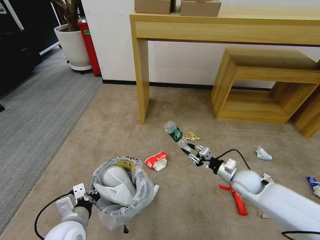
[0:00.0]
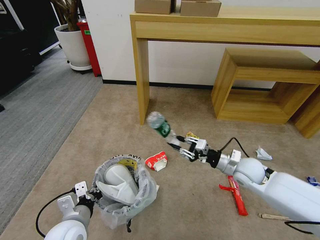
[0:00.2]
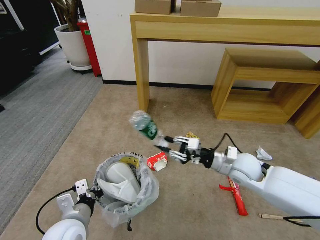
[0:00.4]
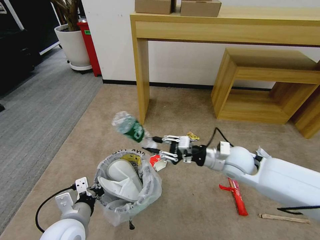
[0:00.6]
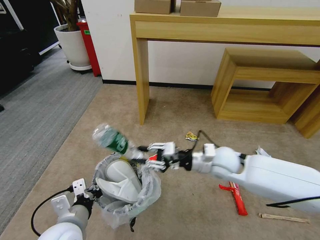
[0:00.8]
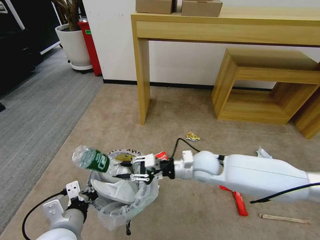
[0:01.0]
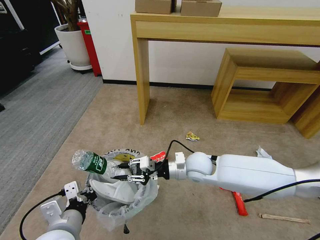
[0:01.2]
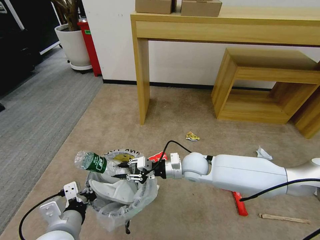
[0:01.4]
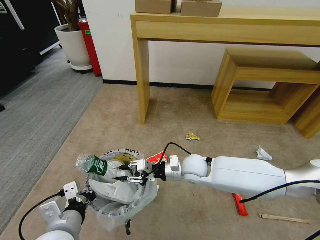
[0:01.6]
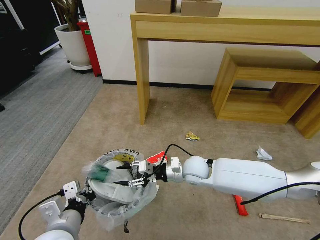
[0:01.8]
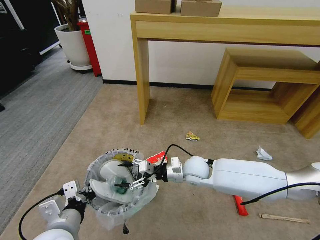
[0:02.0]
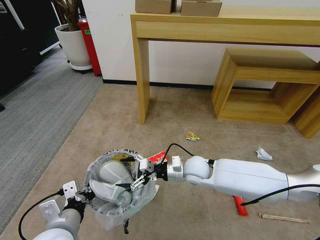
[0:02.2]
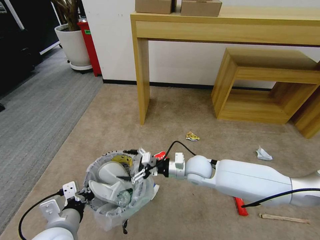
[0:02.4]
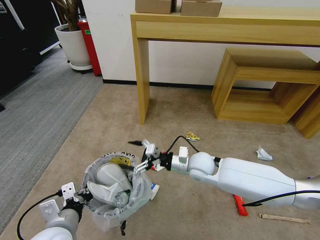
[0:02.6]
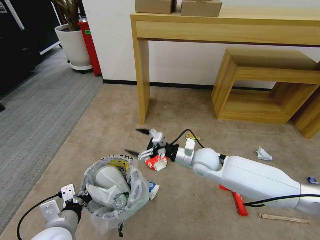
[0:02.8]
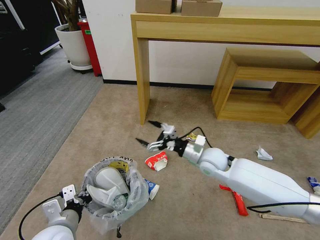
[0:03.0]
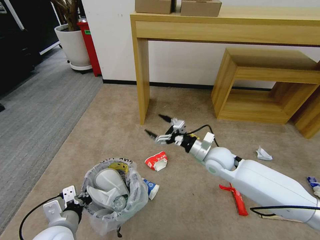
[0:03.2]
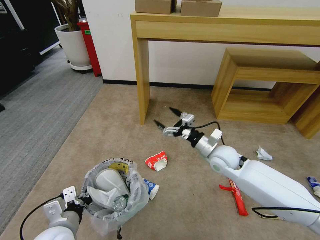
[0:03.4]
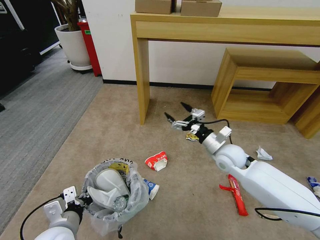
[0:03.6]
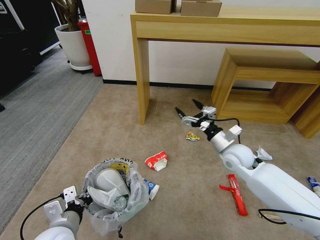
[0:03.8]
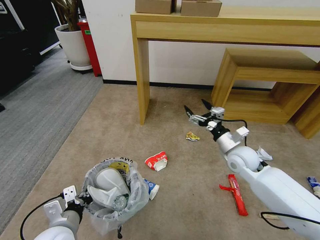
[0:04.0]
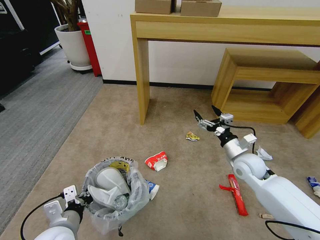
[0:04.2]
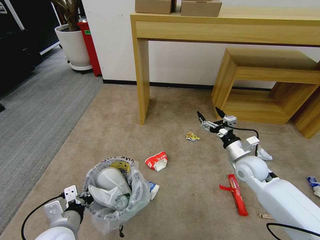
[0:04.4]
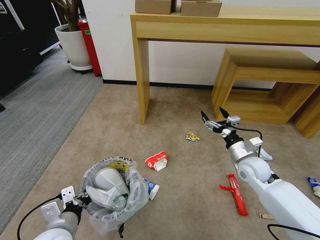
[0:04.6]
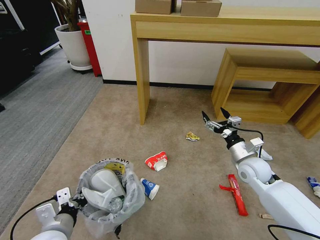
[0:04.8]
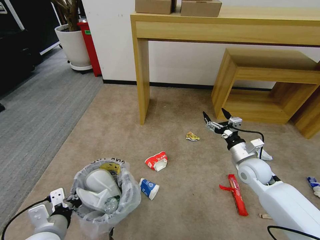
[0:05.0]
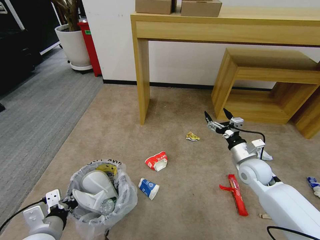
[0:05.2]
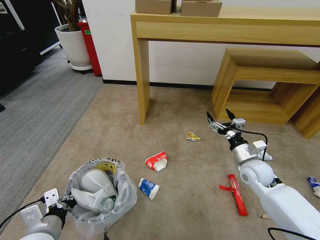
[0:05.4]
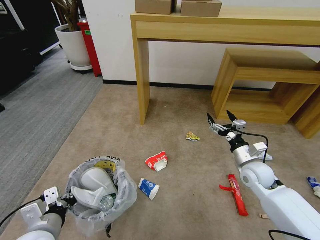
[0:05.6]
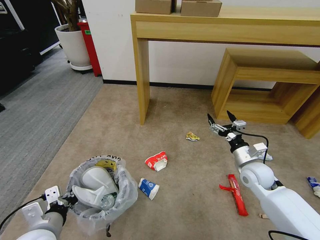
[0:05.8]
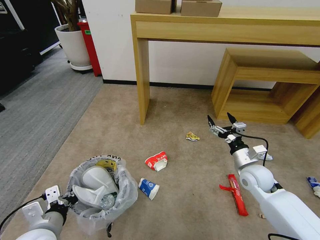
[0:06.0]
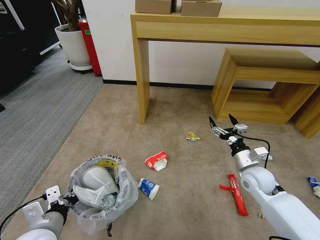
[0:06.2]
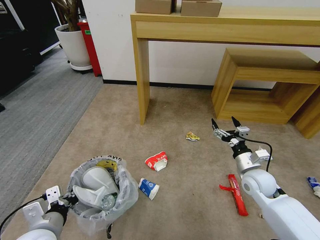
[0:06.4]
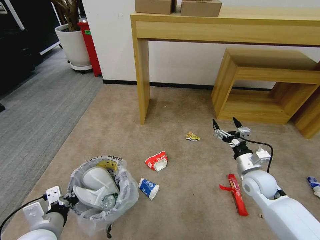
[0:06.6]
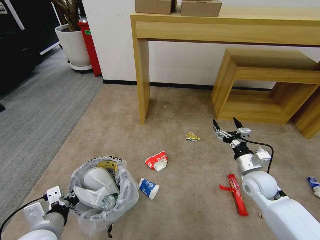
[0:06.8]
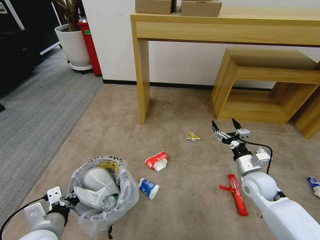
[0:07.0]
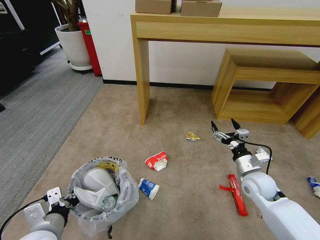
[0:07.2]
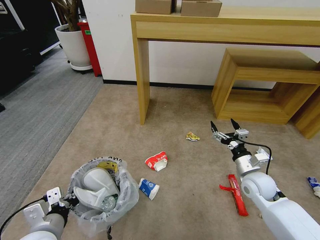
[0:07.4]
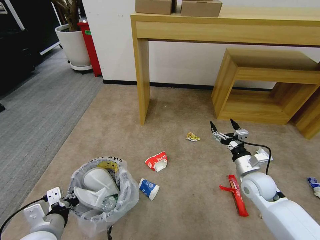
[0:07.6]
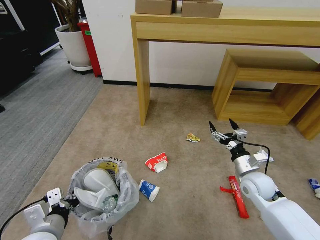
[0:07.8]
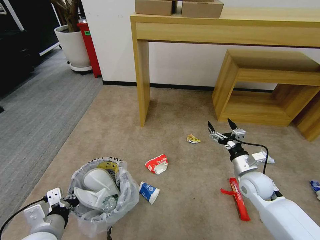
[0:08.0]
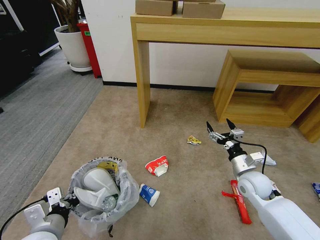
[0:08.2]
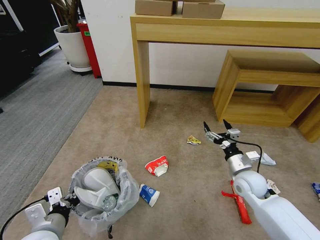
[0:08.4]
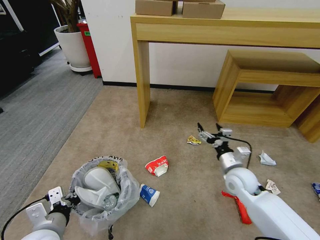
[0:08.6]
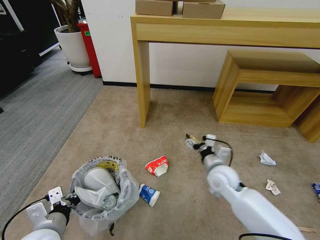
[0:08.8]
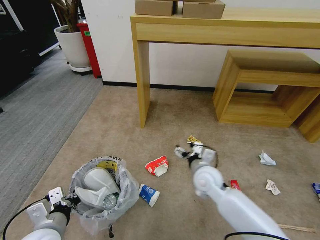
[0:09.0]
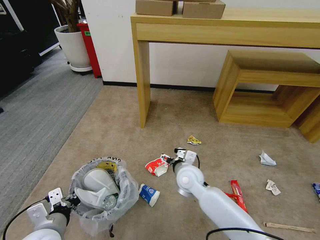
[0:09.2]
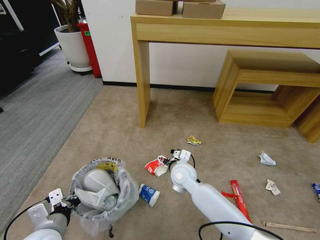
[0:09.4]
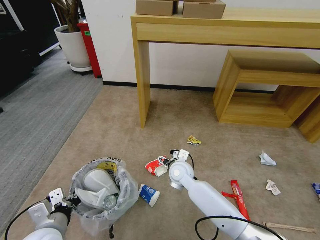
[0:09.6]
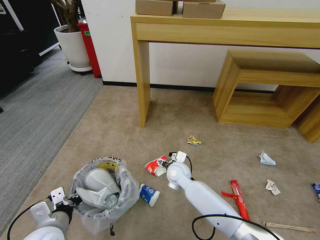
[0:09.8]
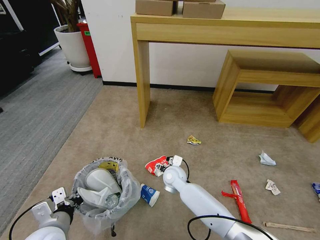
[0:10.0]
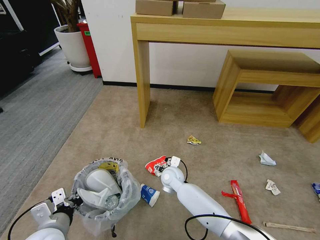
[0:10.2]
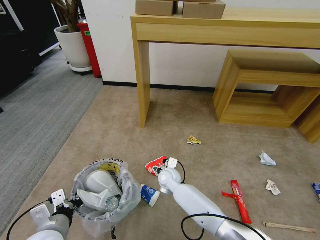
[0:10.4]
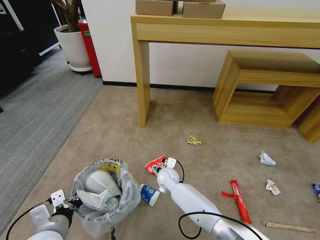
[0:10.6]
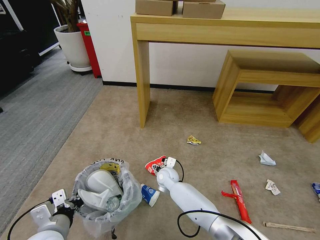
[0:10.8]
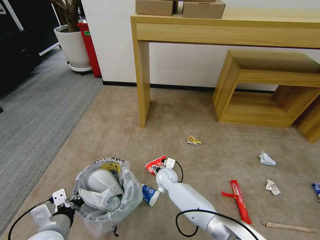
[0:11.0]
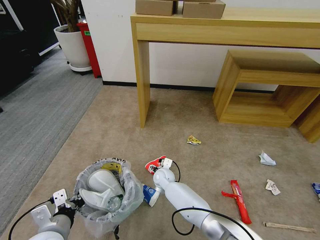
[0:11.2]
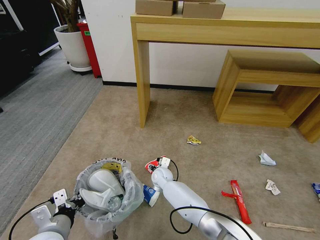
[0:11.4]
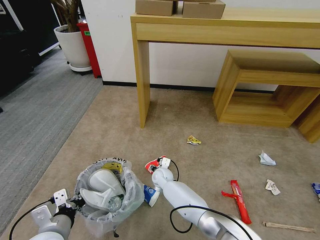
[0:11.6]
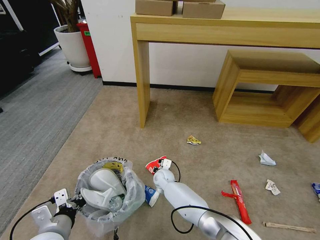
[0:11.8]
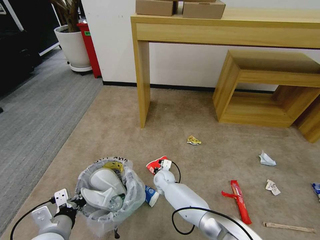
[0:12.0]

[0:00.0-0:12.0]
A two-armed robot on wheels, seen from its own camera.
Task of the whole recording: Pick up the trash bin and place the garbage on the floor into it.
0:00.0 to 0:01.6: The right gripper goes about 20 cm to the left. Meanwhile the left gripper travels upward by some 5 cm.
0:01.6 to 0:03.0: The right gripper heads to the right, covering about 5 cm, and opens its fingers, while the left gripper ends up about 5 cm from where it was.
0:03.0 to 0:04.4: The right gripper heads to the right, covering roughly 15 cm.
0:04.4 to 0:07.6: The grippers stay close to where they were, moving slightly.
0:07.6 to 0:09.0: The right gripper is displaced to the left by roughly 15 cm.
0:09.0 to 0:10.4: The right gripper goes roughly 20 cm to the left, downward and forward.
0:10.4 to 0:12.0: The right gripper moves downward, roughly 5 cm, and closes its fingers.

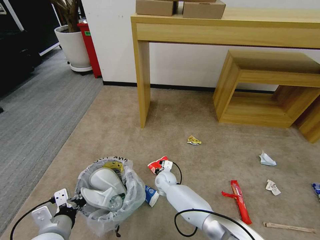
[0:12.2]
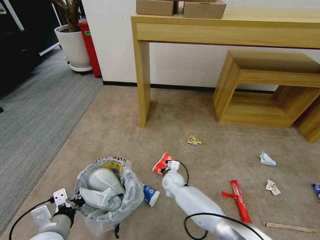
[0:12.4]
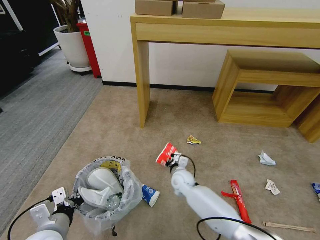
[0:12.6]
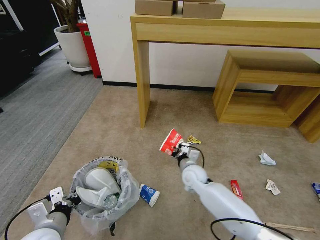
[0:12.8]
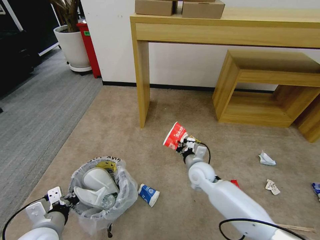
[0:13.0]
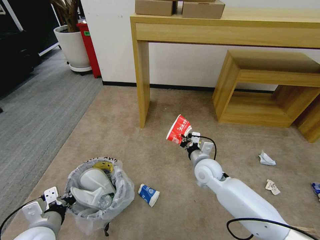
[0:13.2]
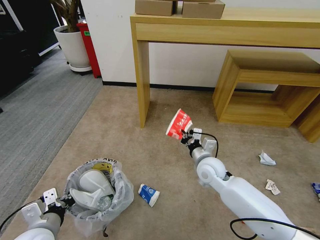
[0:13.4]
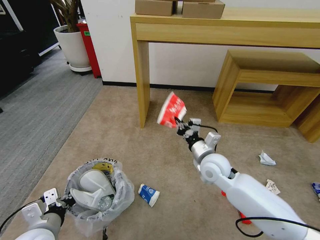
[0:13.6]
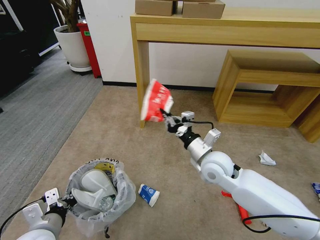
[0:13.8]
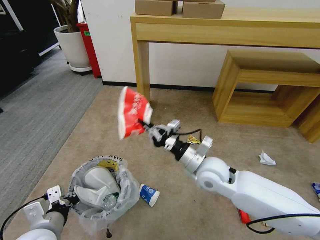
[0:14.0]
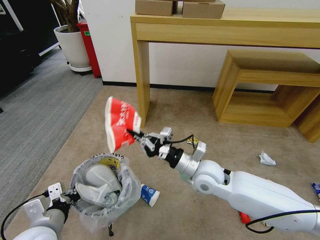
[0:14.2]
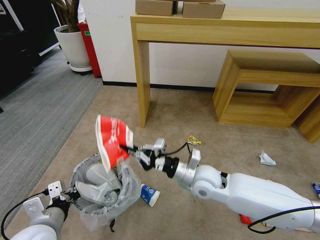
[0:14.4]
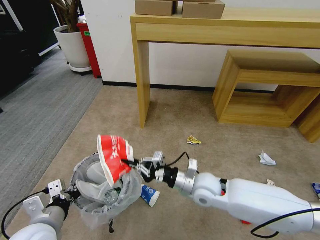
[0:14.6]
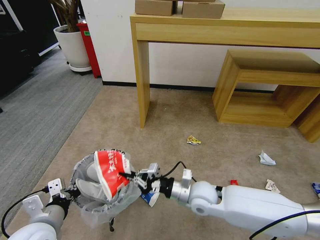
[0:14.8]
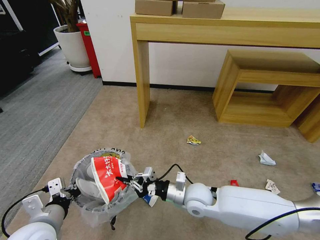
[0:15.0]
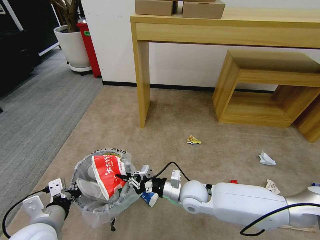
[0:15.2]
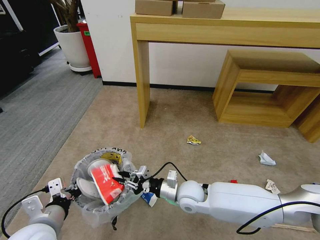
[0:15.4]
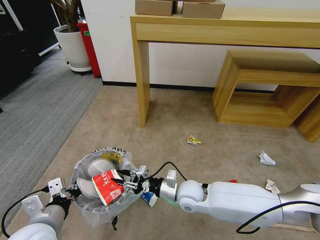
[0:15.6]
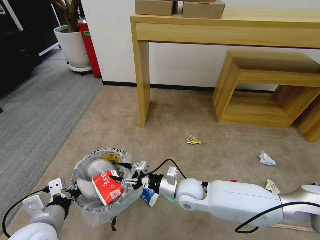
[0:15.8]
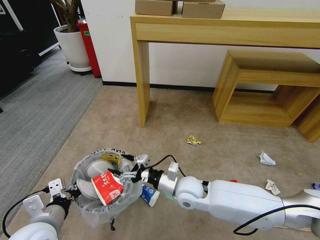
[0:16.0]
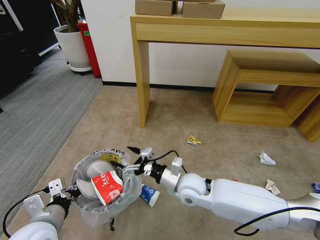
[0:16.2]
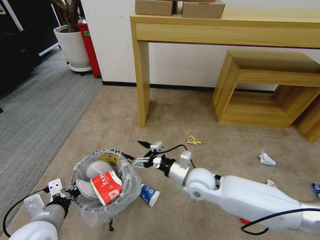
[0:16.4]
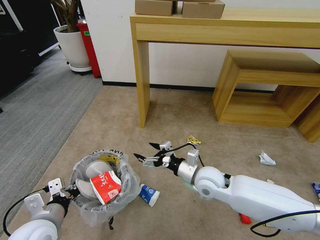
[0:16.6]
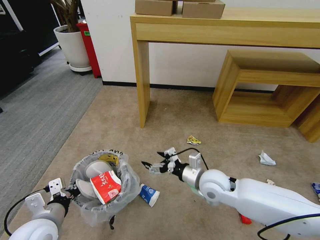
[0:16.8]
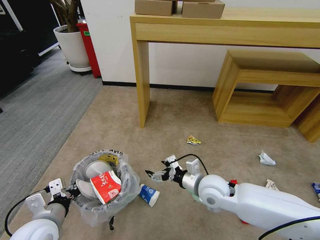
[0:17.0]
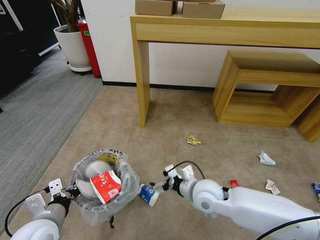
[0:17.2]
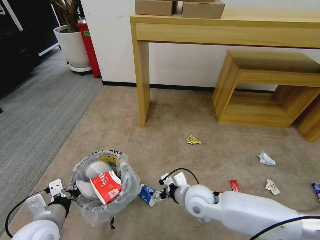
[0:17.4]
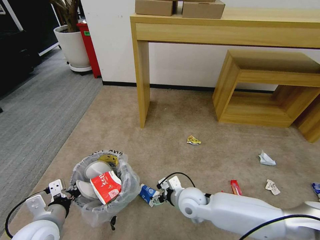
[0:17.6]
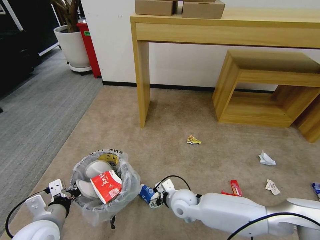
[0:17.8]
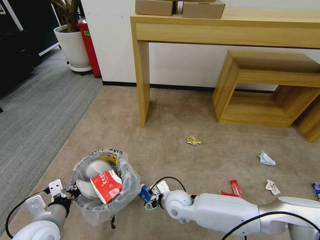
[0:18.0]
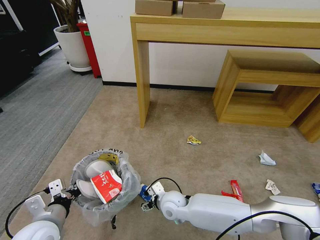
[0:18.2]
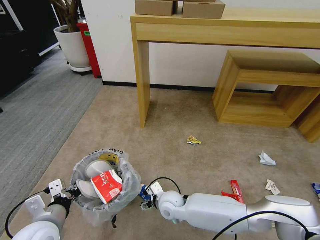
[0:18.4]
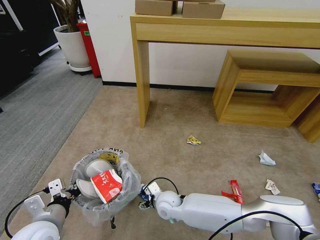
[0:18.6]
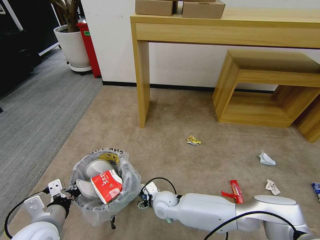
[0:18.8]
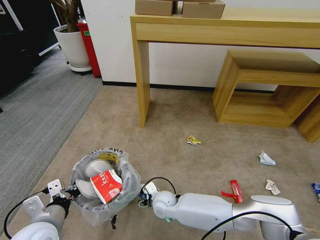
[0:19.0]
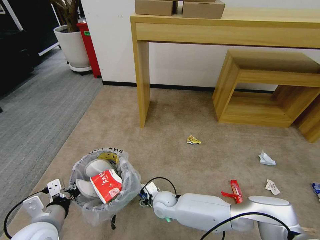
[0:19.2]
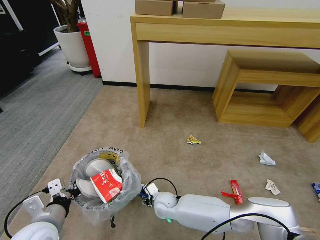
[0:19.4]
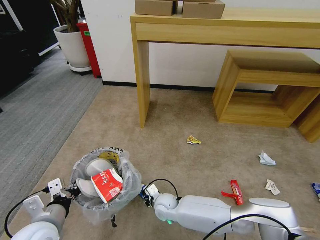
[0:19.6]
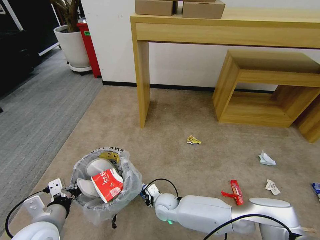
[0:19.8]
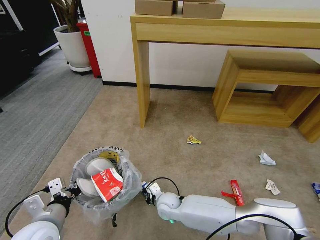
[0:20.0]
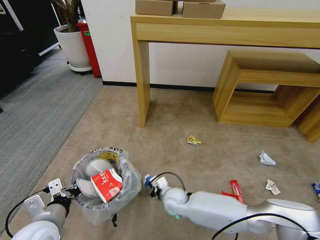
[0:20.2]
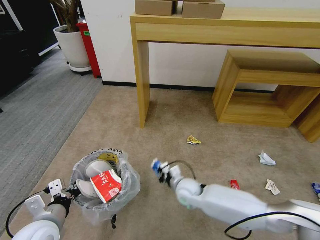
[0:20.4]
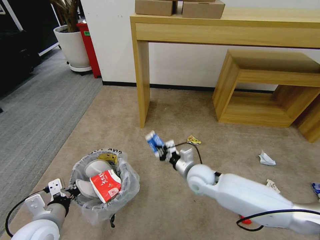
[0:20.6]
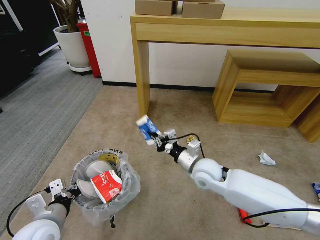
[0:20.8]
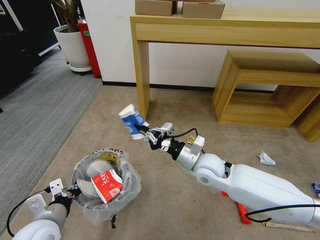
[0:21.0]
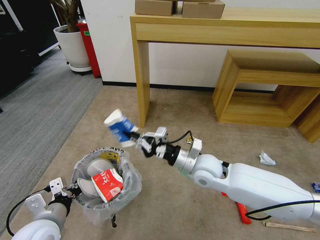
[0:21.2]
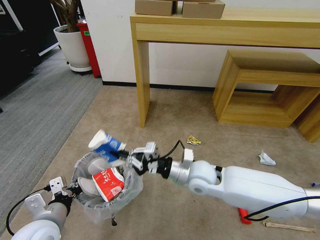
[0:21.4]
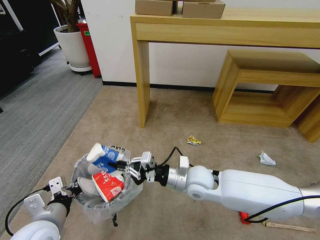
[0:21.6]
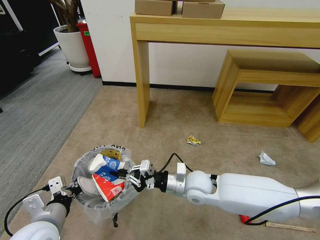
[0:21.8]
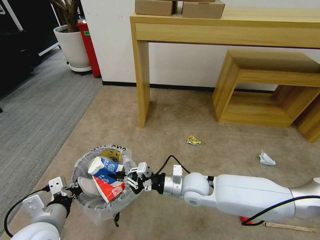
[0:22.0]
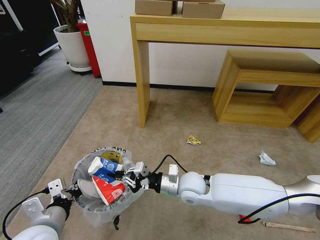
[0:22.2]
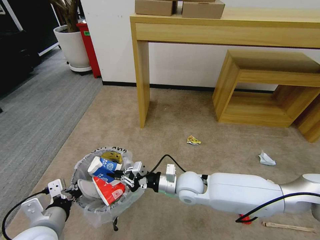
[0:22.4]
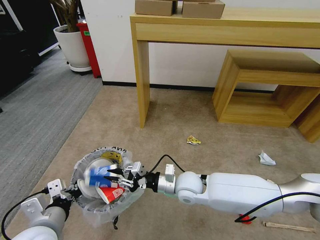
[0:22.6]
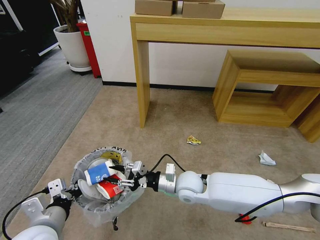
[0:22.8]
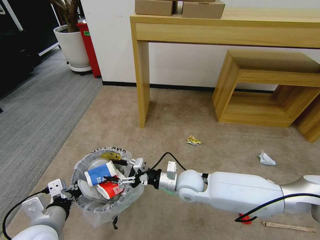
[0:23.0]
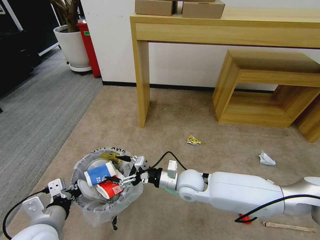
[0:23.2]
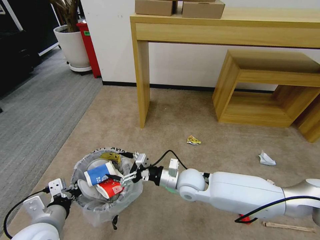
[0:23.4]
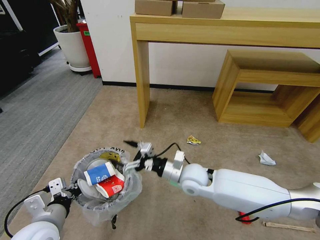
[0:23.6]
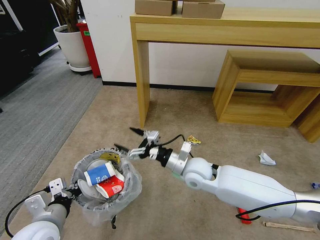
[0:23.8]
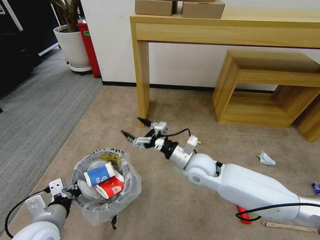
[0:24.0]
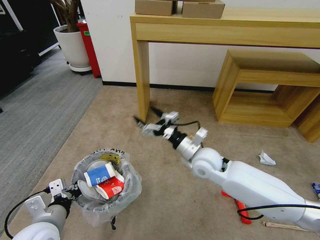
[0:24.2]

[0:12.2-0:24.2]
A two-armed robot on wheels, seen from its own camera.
Task of the whole recording: Pick up the trash bin and place the garbage on the floor into it.
0:12.2 to 0:13.8: The right gripper is displaced upward and to the right by roughly 30 cm.
0:13.8 to 0:15.2: The right gripper moves downward and to the left, some 15 cm.
0:15.2 to 0:16.6: The right gripper moves upward, about 5 cm, and opens.
0:16.6 to 0:18.2: The right gripper goes some 15 cm downward and to the left.
0:18.2 to 0:19.8: The right gripper travels downward by approximately 5 cm, and closes its fingers.
0:19.8 to 0:21.2: The right gripper travels upward and to the right by some 25 cm.
0:21.2 to 0:22.6: The right gripper travels downward by roughly 5 cm.
0:22.6 to 0:24.2: The right gripper travels upward and to the right by approximately 10 cm, and opens up.
